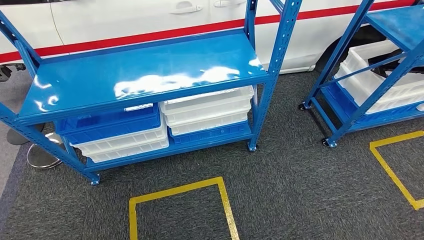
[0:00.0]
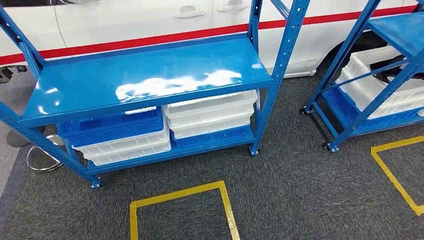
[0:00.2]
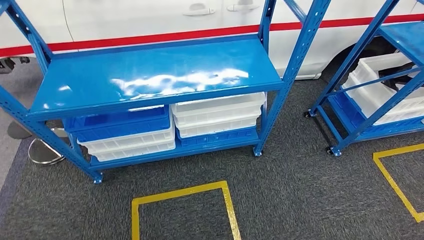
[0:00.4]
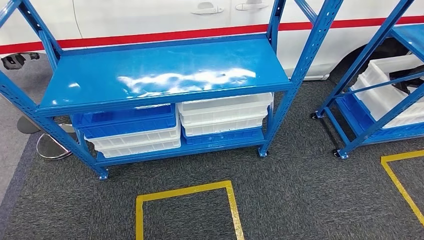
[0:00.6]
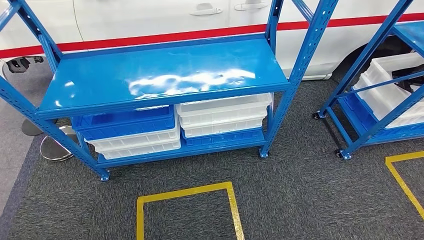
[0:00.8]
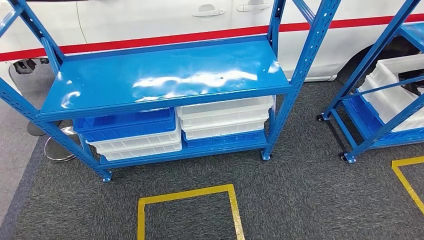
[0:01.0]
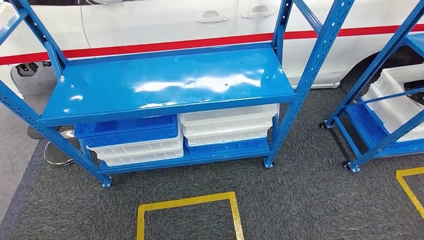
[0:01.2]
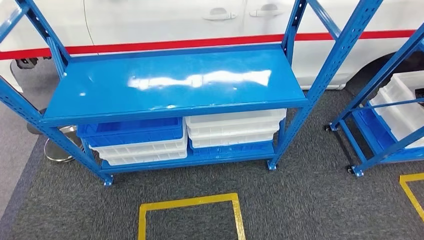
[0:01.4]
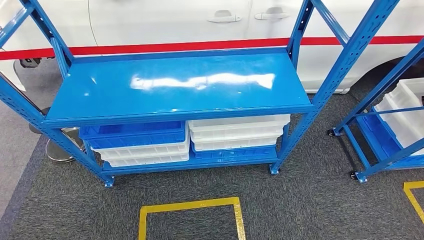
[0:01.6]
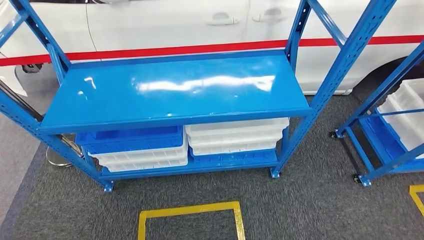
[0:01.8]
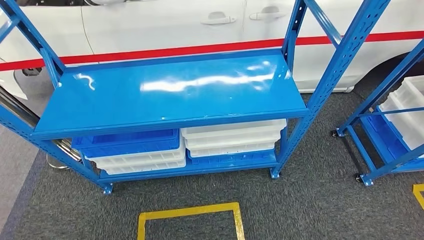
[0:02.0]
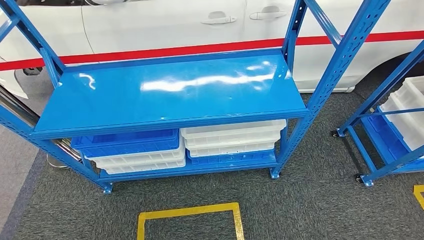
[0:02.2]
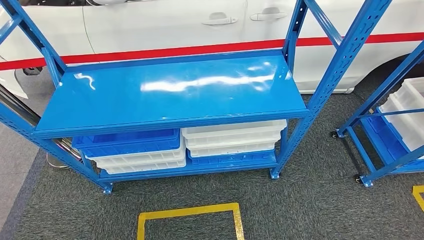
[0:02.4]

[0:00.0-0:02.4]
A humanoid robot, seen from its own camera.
Step, 0:00.0 to 0:02.4: Move to the initial position of the shelf.

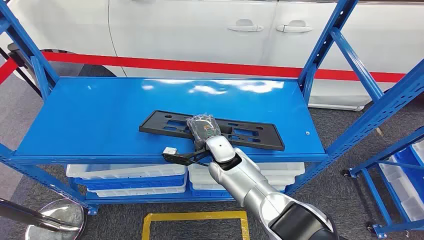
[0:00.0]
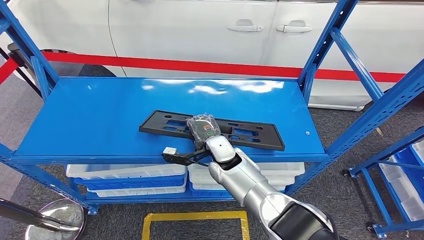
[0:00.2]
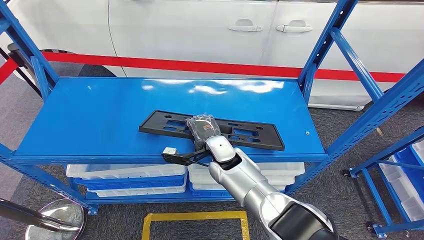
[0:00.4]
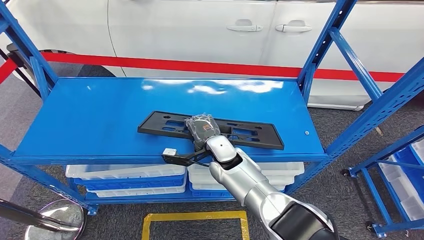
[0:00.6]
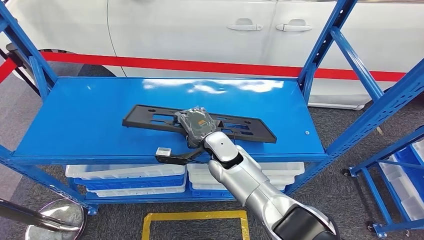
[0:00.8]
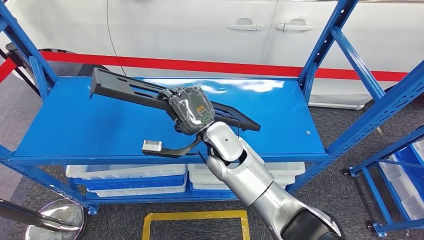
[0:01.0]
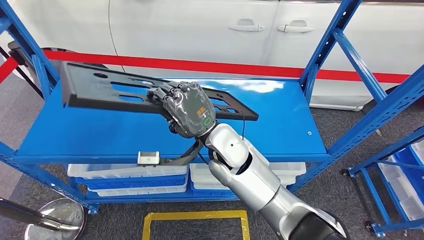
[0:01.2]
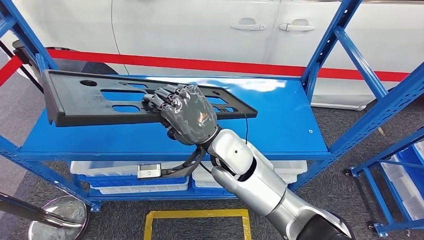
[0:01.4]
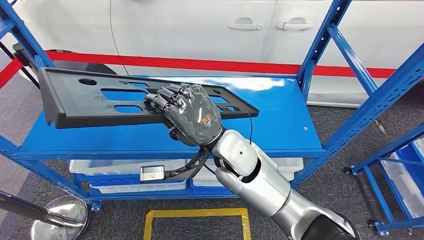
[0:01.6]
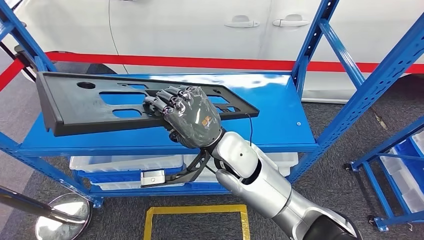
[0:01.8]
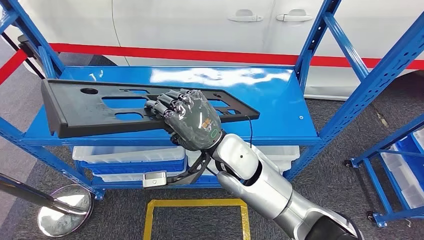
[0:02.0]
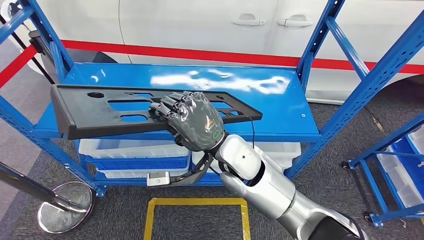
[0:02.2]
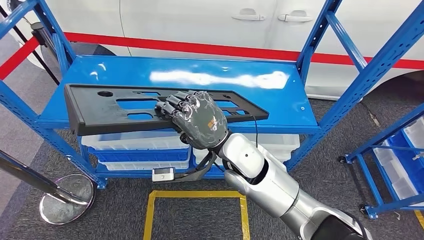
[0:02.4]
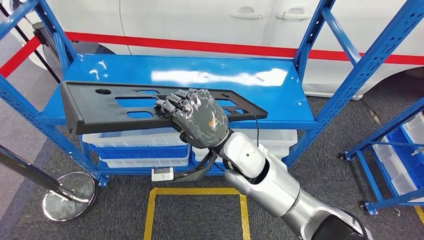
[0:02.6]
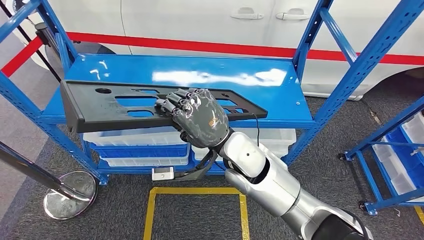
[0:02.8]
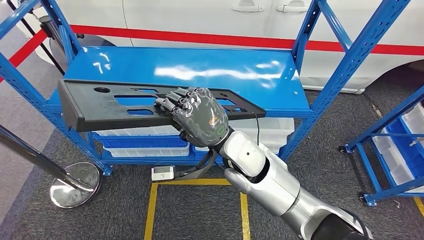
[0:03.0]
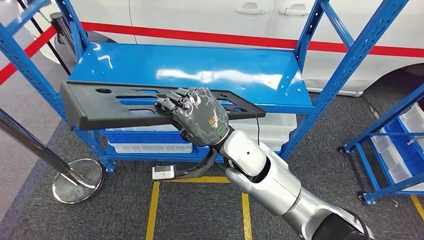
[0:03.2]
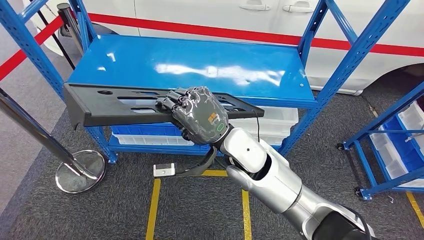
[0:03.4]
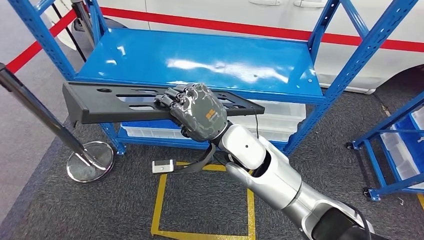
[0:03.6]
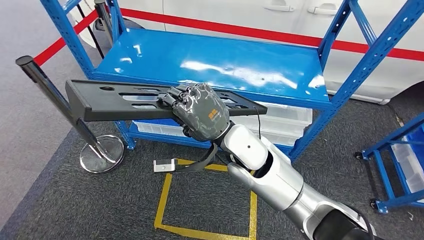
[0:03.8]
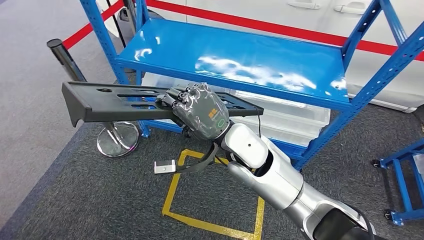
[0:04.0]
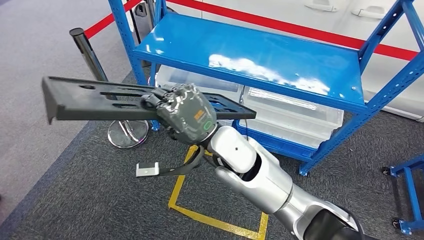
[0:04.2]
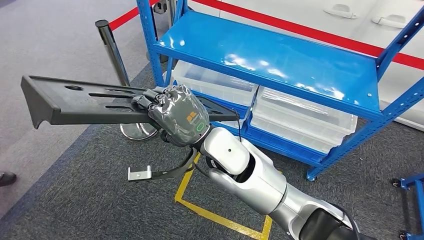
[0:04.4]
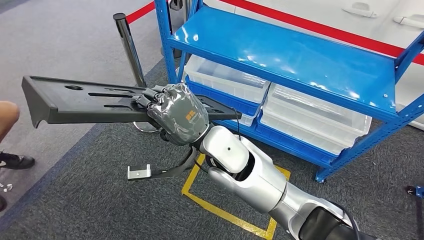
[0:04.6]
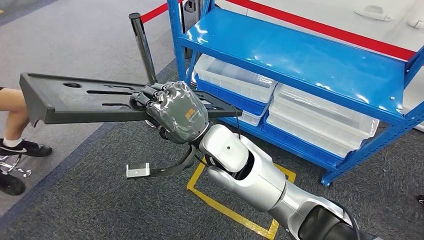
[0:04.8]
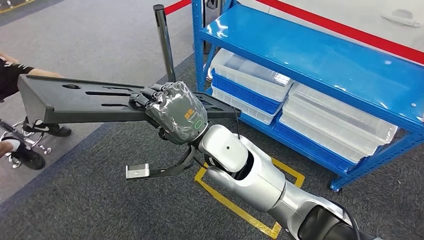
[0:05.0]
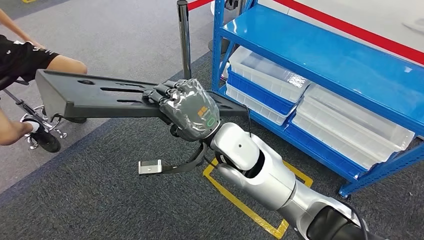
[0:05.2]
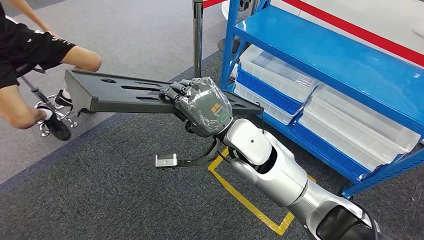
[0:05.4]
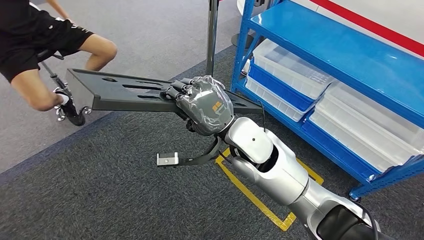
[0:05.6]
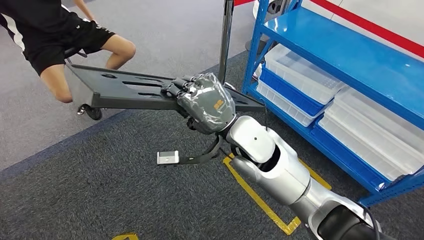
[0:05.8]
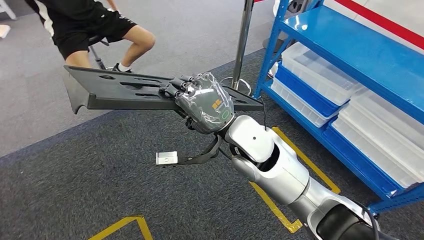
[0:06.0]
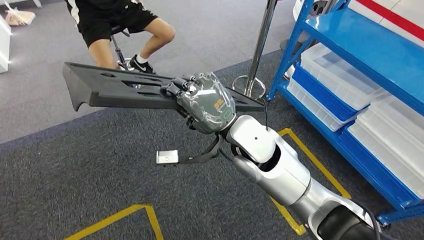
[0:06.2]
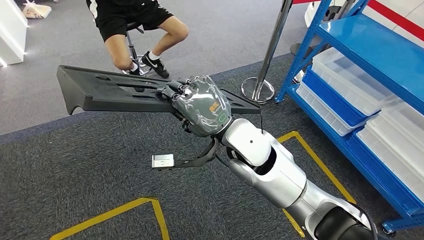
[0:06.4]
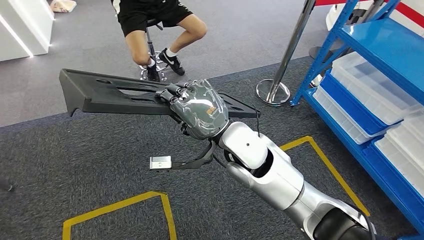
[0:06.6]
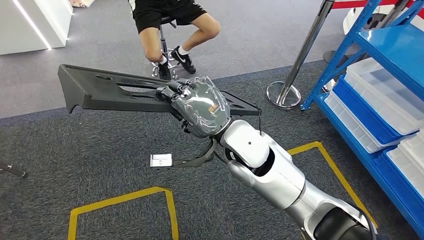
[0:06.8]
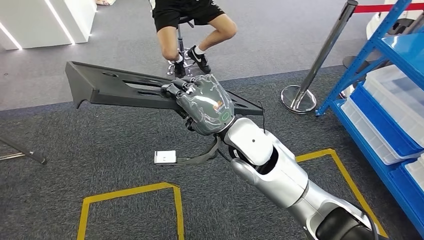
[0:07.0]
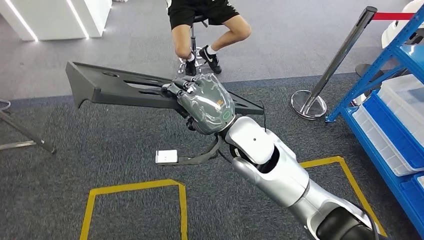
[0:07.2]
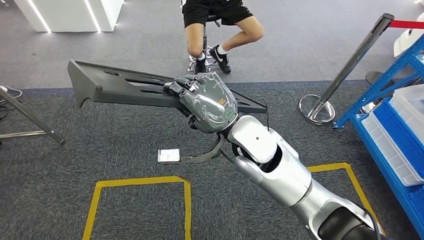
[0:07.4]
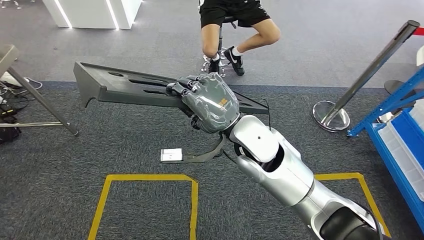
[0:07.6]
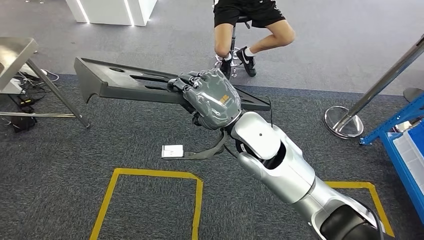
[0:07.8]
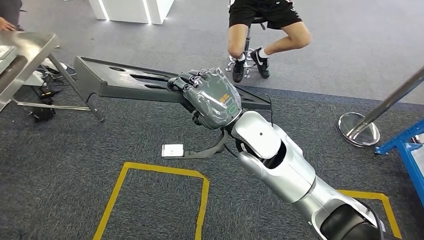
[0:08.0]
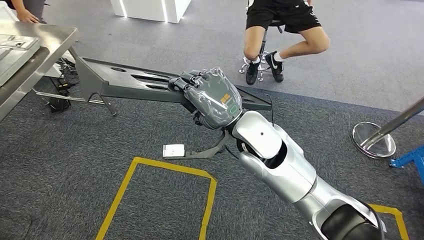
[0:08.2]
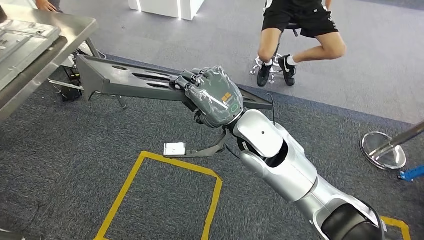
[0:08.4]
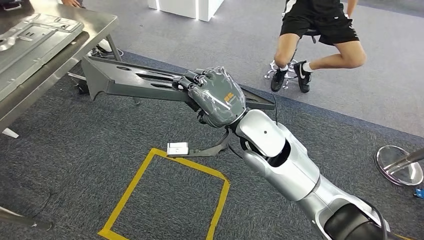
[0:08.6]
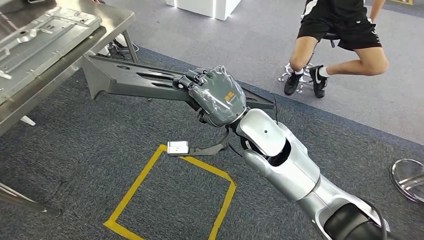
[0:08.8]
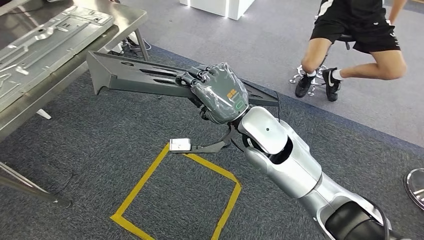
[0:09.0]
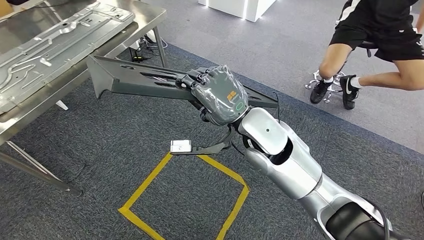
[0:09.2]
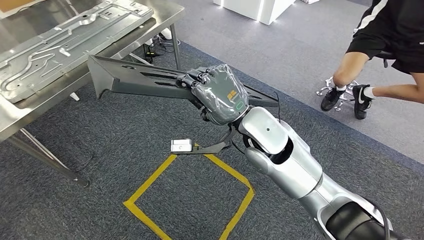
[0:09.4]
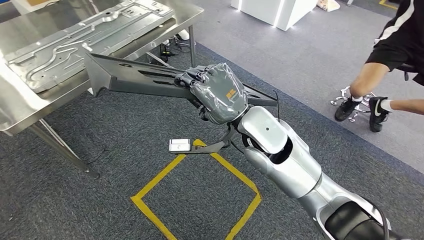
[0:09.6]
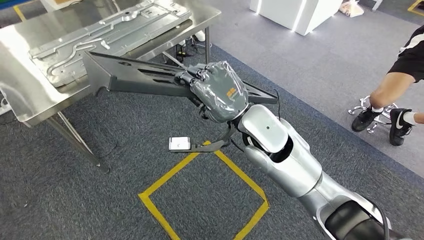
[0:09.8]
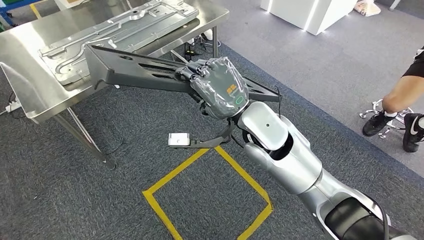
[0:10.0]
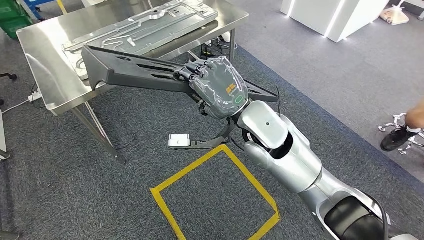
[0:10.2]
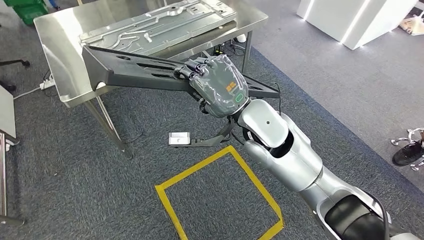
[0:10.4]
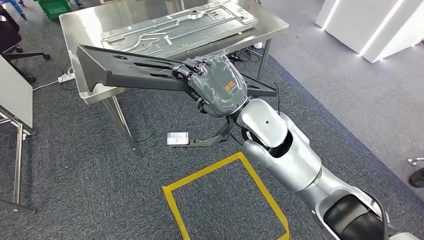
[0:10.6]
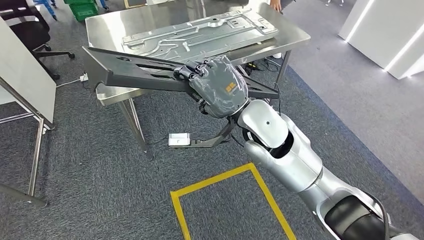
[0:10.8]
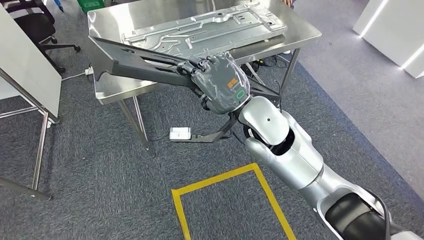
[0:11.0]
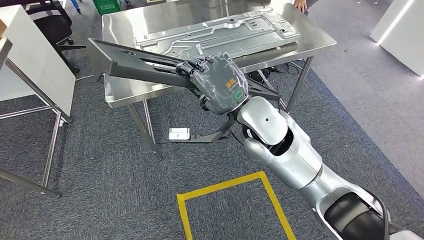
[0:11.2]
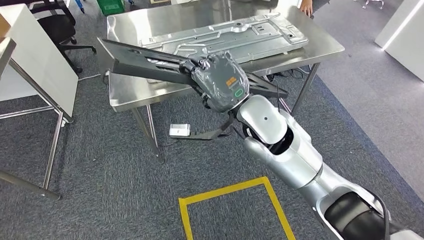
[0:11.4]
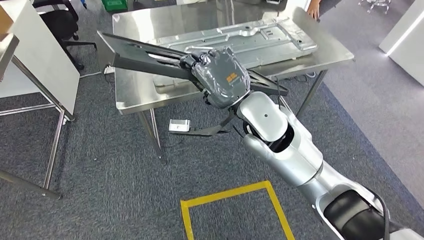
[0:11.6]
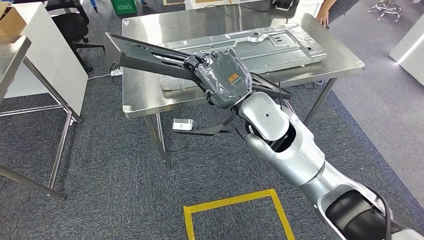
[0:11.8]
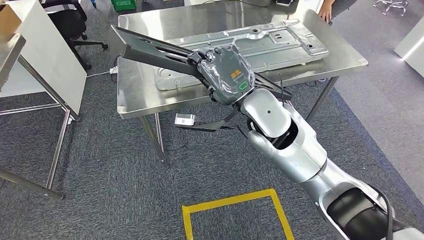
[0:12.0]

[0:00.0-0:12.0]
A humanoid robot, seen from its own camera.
Step, 0:00.0 to 0:03.2: Pick up the large material from the shelf.

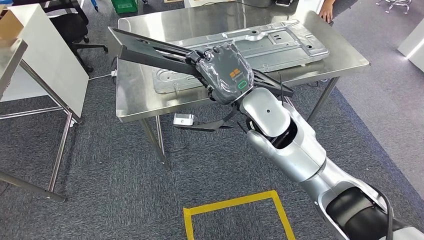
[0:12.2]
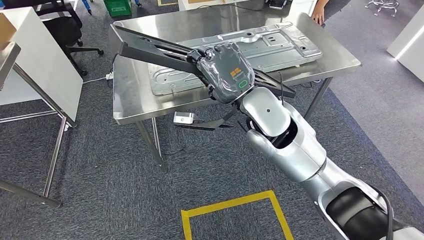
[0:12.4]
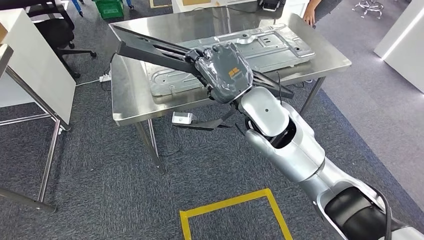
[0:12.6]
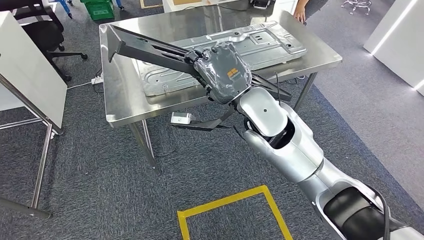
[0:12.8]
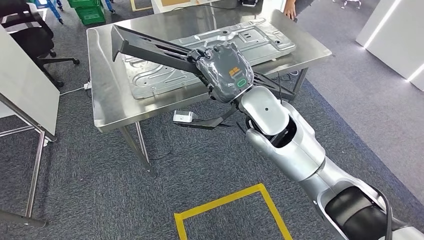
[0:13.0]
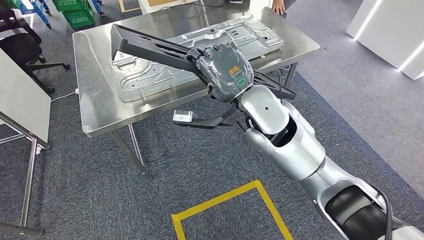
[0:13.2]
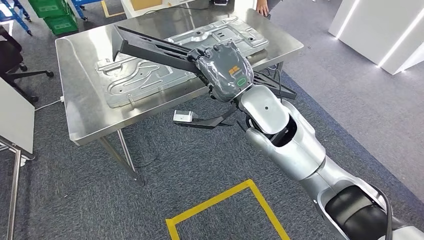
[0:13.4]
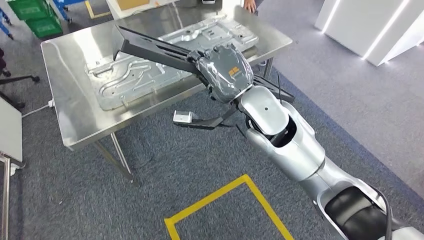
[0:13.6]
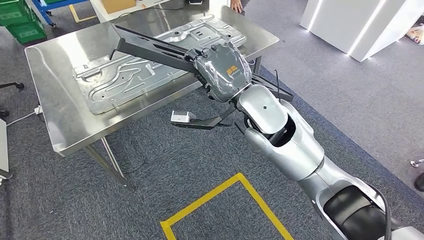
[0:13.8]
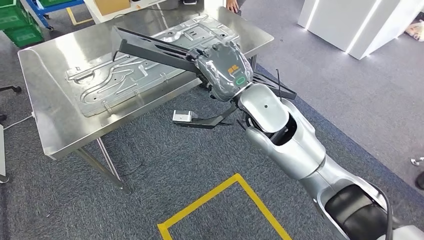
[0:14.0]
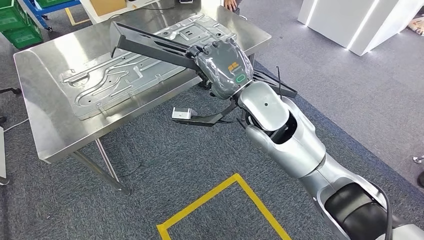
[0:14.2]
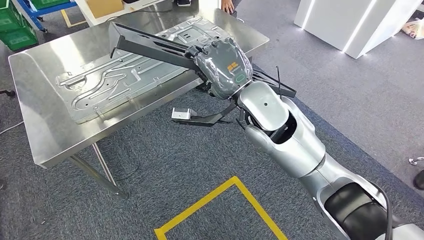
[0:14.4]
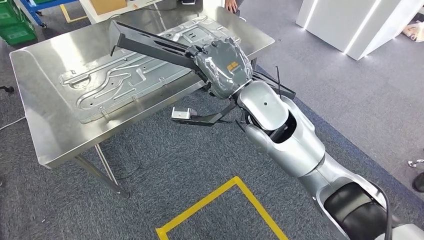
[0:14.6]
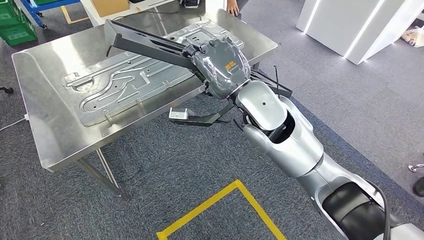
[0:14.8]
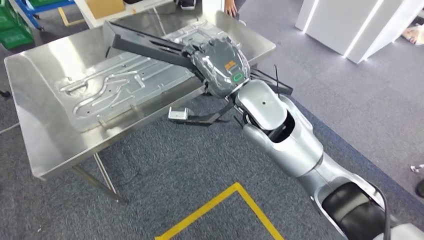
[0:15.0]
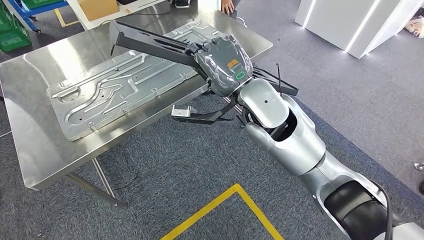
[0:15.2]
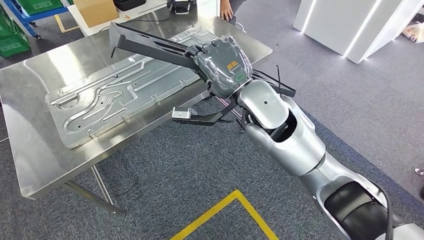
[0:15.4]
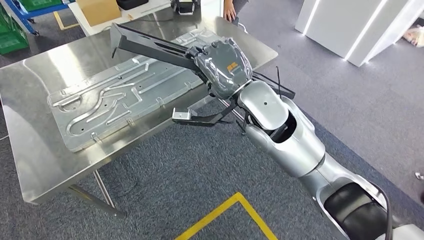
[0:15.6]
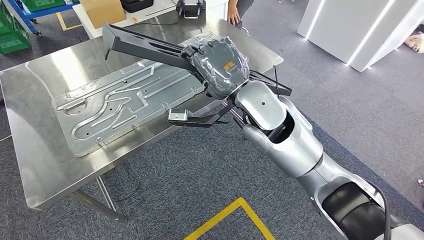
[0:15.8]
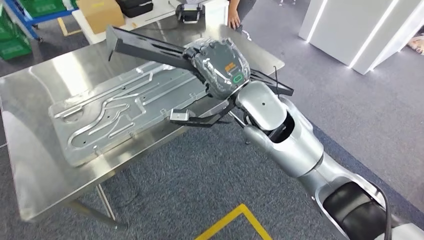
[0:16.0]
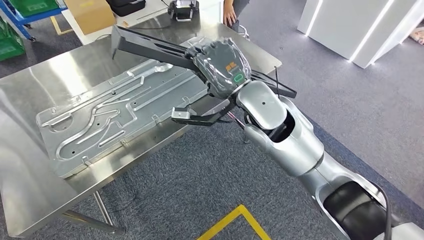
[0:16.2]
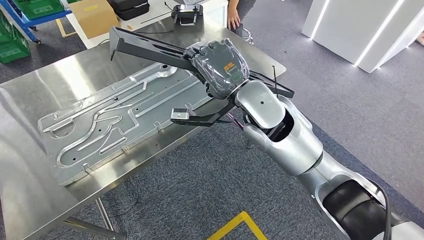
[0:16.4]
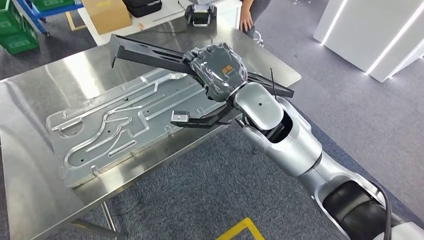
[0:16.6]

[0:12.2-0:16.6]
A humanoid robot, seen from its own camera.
Step, 0:12.2 to 0:14.8: Move the large material to the workbench.
